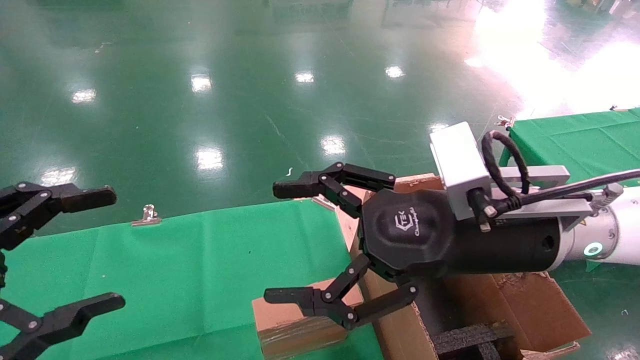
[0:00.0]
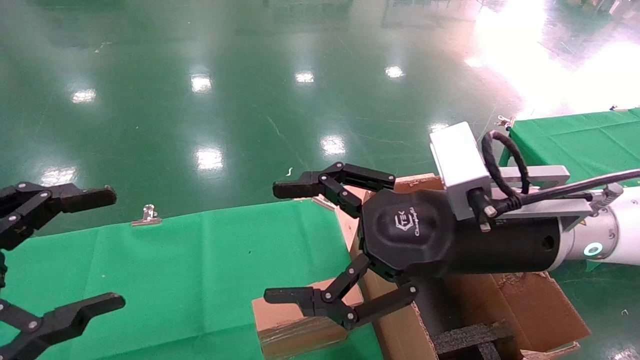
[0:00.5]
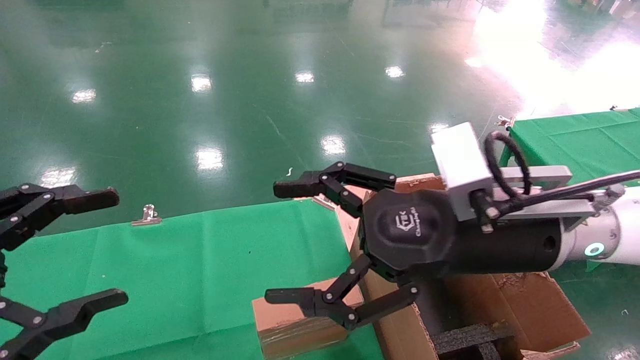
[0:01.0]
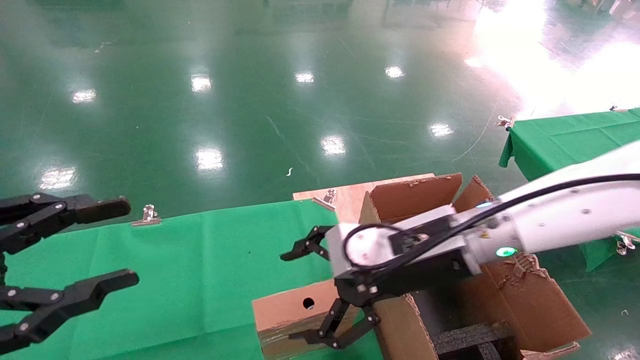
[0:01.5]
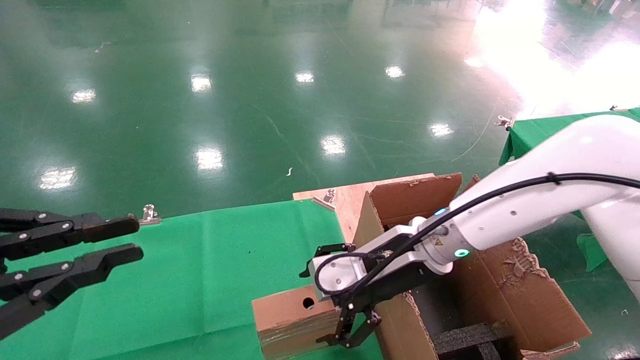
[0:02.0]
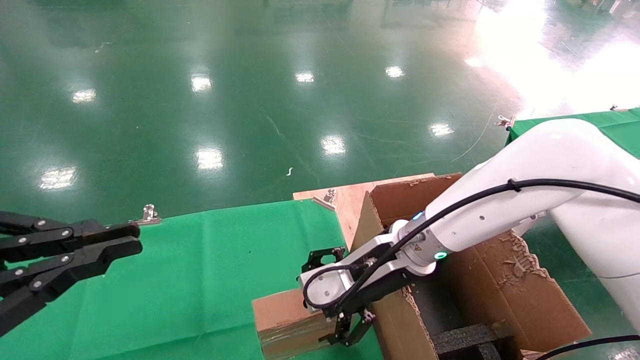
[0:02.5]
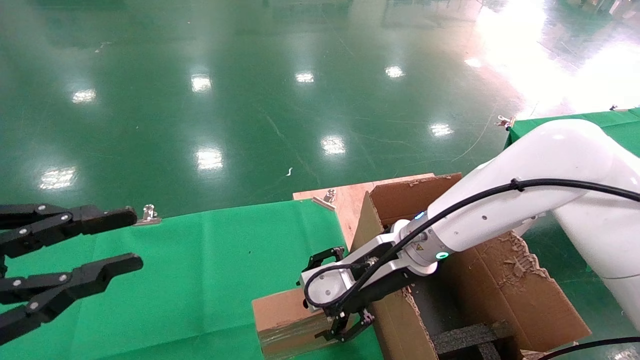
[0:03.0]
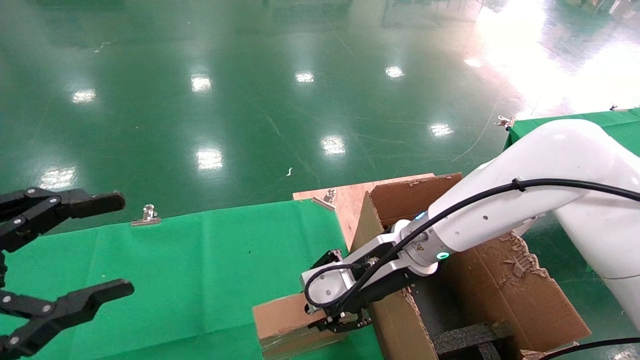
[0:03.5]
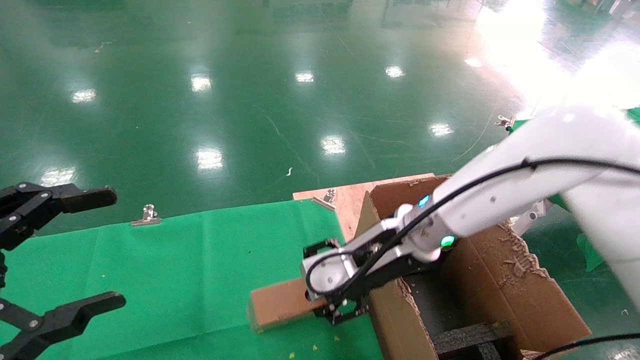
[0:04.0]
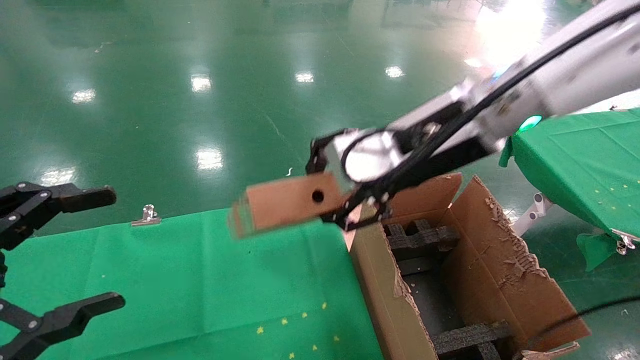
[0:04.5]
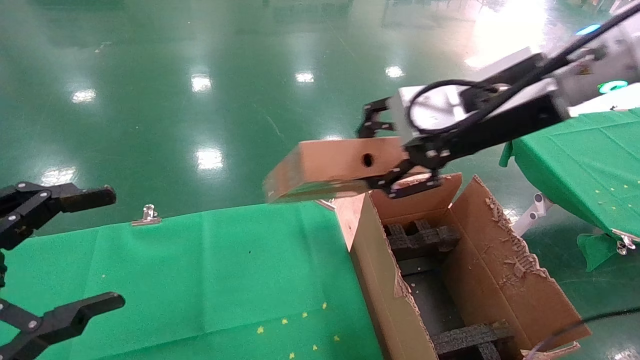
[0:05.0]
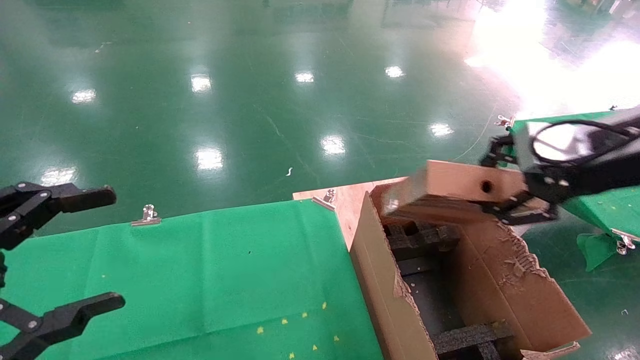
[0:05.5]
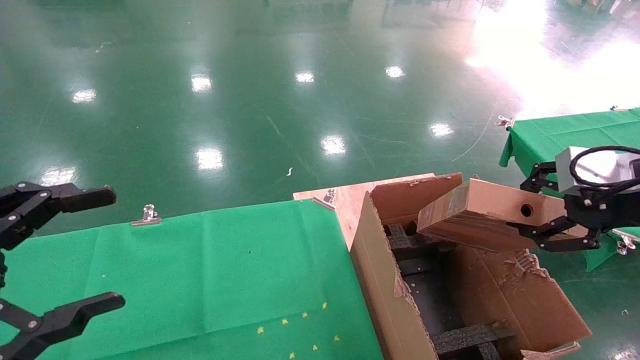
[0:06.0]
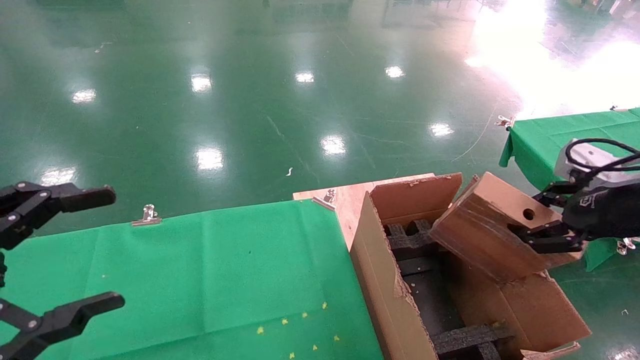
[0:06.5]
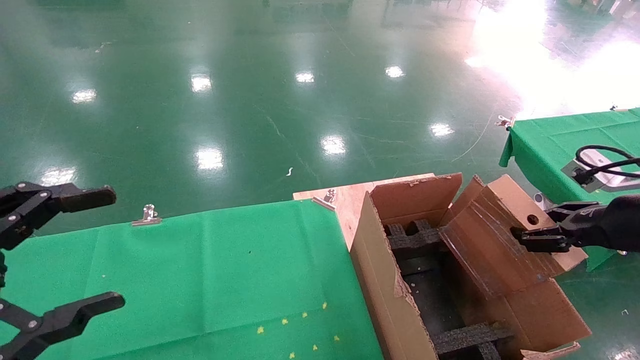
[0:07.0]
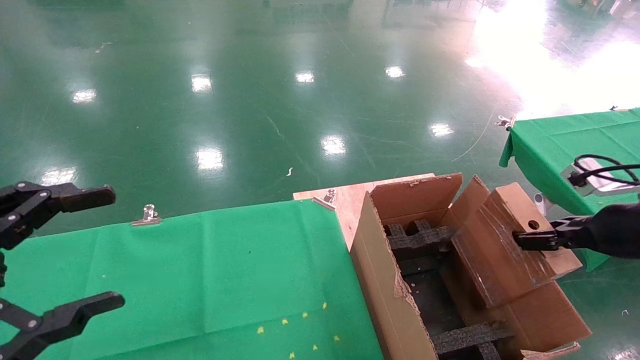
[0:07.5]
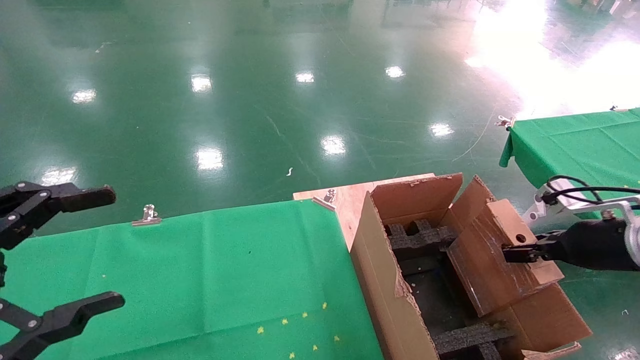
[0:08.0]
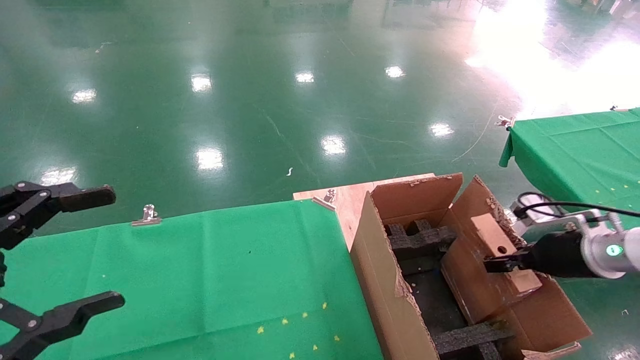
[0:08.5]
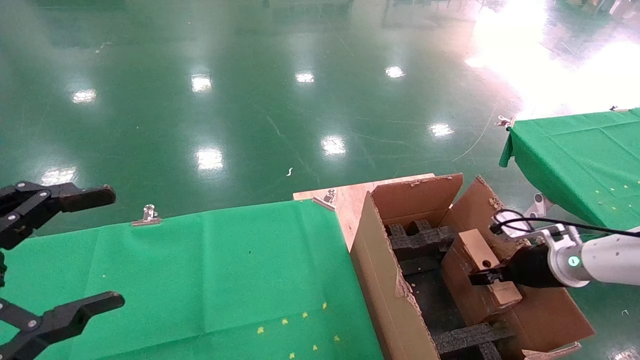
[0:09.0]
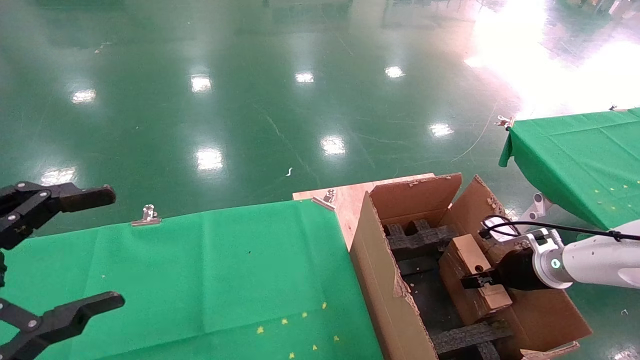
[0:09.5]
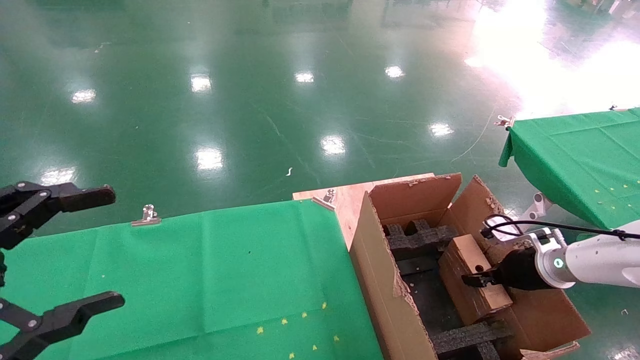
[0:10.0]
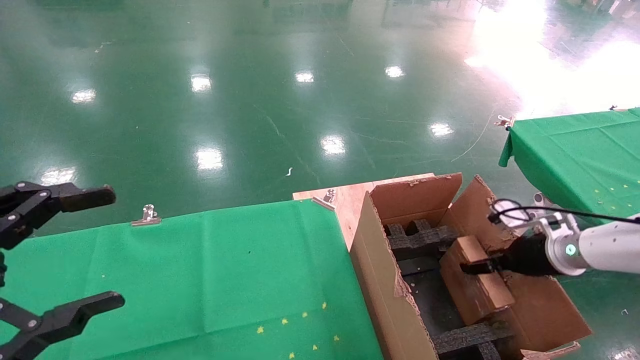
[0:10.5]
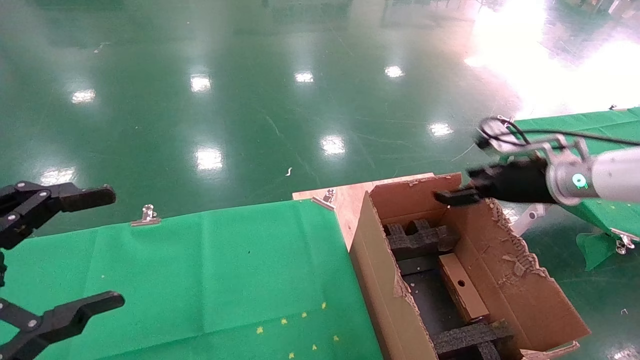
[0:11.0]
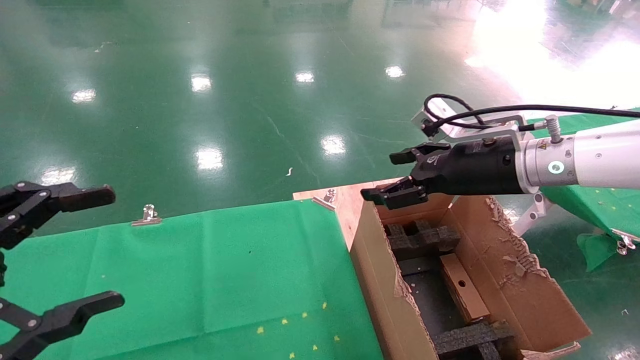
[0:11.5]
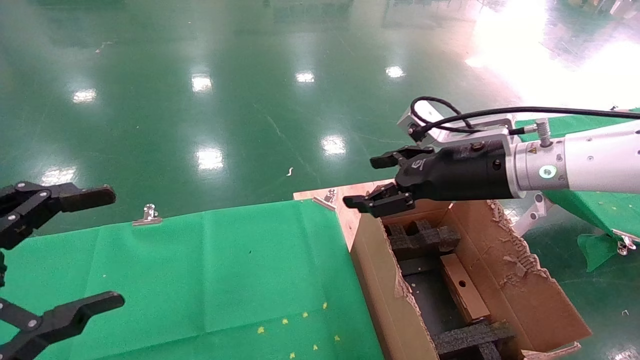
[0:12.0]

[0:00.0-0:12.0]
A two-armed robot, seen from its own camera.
Task of the whole recording: using a robotic arm to pick up a cardboard box and palace it the carton.
Step, 0:01.5 to 0:03.5: Pick up the mouse and the power cord paper box.
Step, 0:04.0 to 0:10.5: Place the mouse and the power cord paper box into the container.
0:00.0 to 0:02.0: The left gripper closes its fingers. Meanwhile the right gripper moves forward and downward, approximately 10 cm.
0:02.0 to 0:04.0: The right gripper closes its fingers, while the left gripper opens its fingers.
0:04.0 to 0:06.0: The right gripper goes roughly 30 cm to the right and backward.
0:06.0 to 0:08.0: The right gripper goes some 15 cm downward and forward.
0:08.0 to 0:10.0: The right gripper shifts approximately 15 cm downward and forward.
0:10.0 to 0:12.0: The right gripper moves upward and to the left, roughly 25 cm, and opens up.

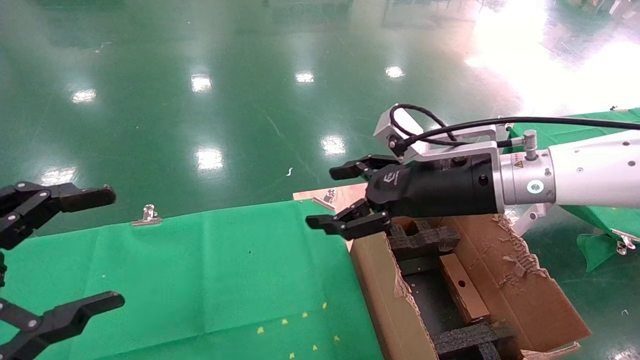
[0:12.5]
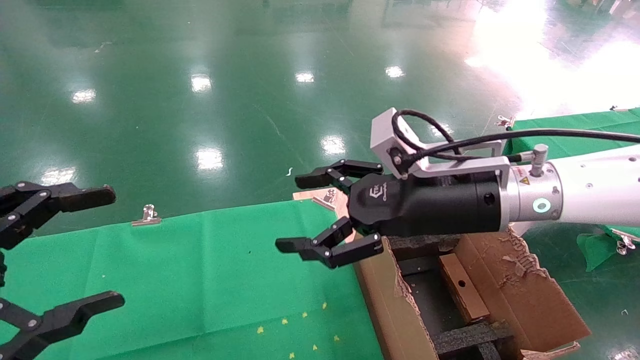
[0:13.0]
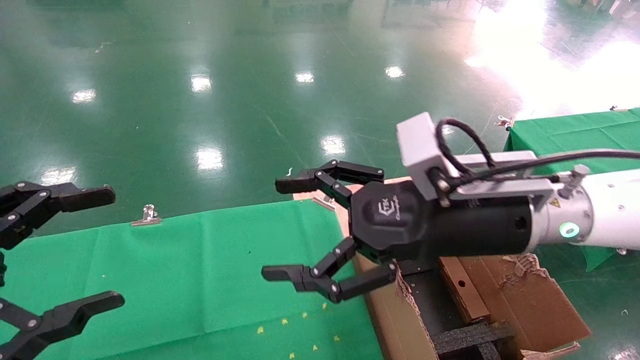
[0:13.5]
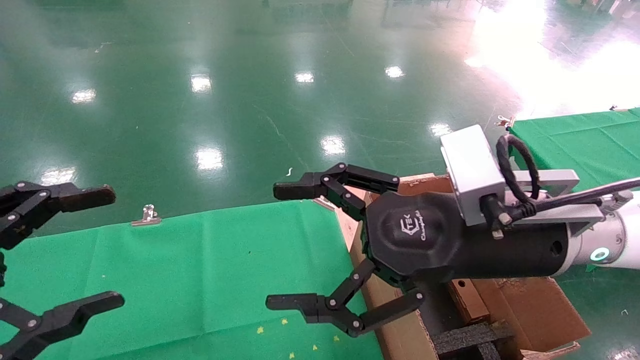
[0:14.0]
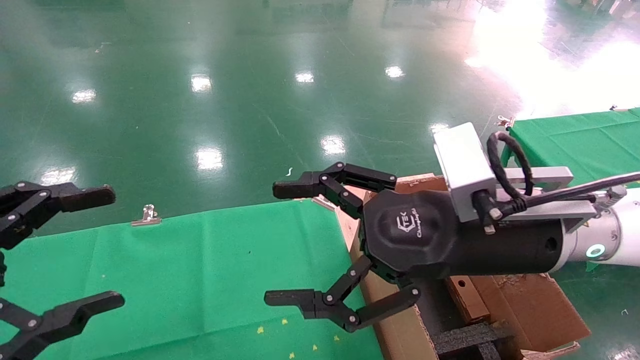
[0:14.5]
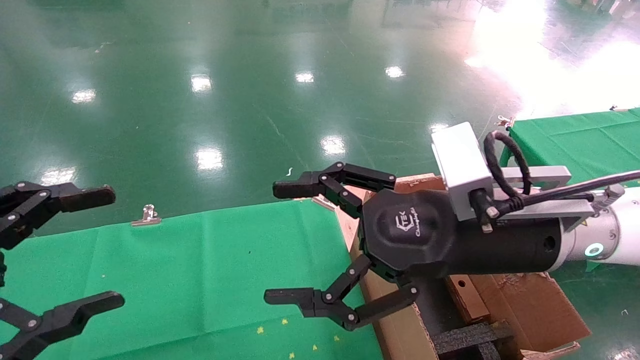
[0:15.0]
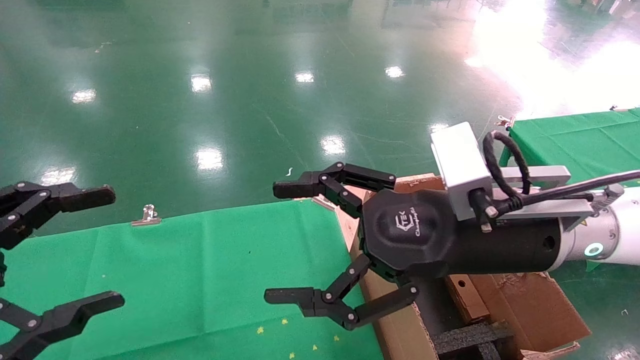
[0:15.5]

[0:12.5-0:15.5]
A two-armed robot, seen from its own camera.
Task of the whole recording: using a robotic arm to pick up a cardboard box and palace it the carton.
0:12.5 to 0:14.0: The right gripper shifts roughly 10 cm backward.
0:14.0 to 0:15.5: Both grippers stay about where they are.
